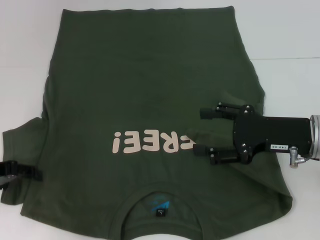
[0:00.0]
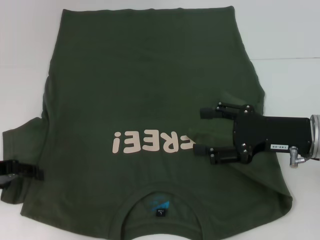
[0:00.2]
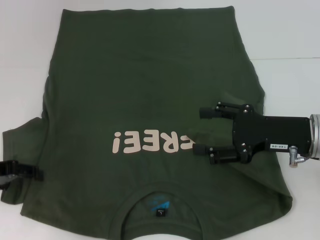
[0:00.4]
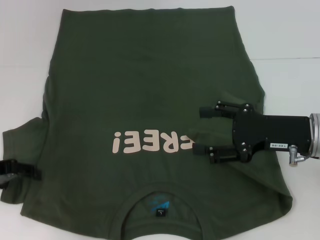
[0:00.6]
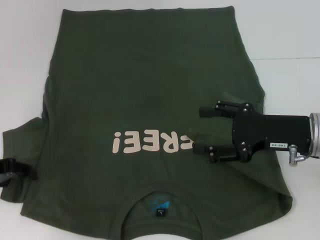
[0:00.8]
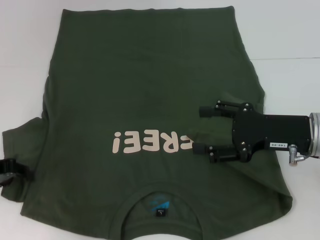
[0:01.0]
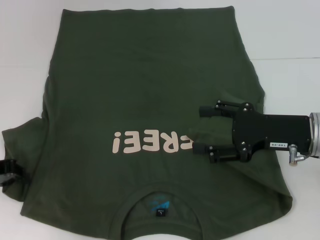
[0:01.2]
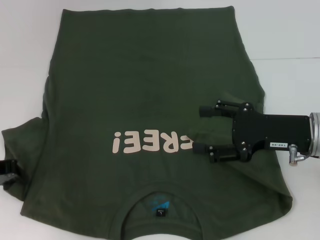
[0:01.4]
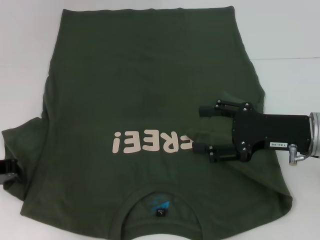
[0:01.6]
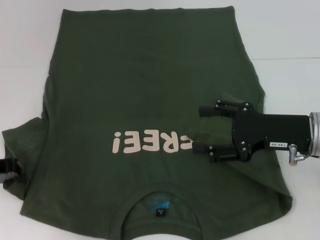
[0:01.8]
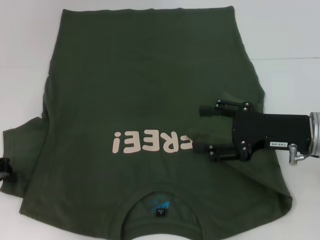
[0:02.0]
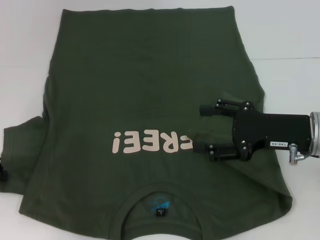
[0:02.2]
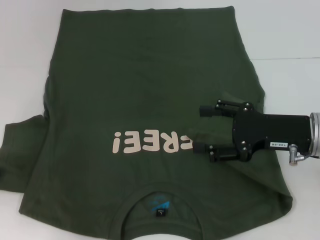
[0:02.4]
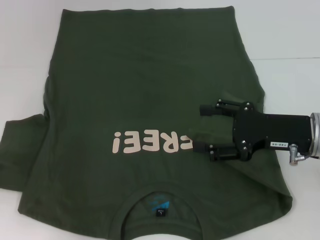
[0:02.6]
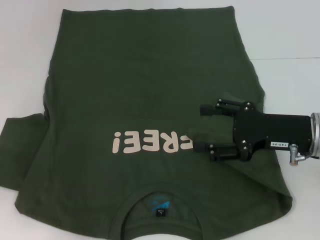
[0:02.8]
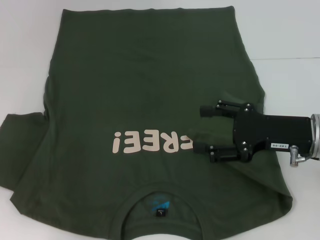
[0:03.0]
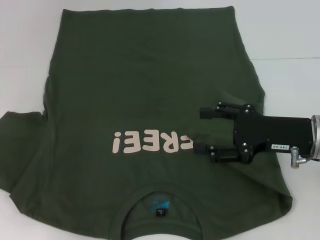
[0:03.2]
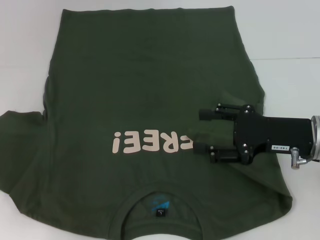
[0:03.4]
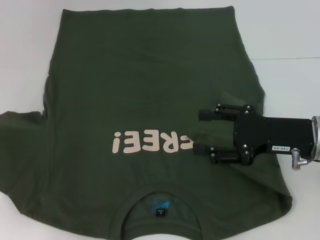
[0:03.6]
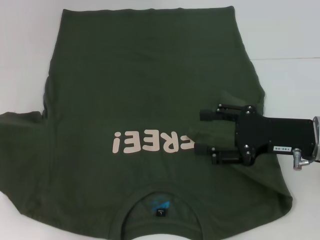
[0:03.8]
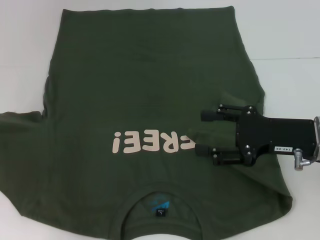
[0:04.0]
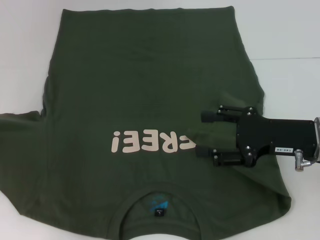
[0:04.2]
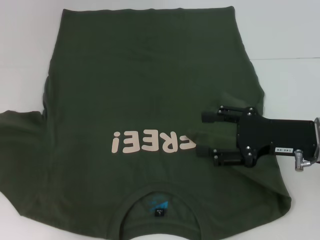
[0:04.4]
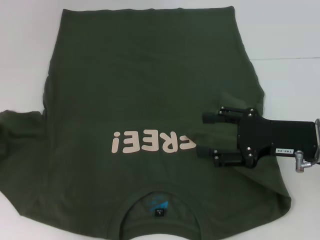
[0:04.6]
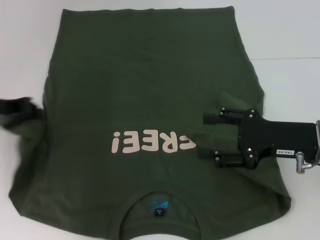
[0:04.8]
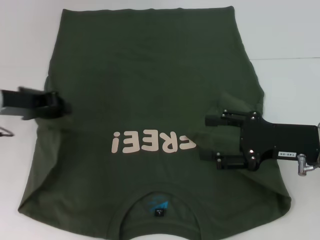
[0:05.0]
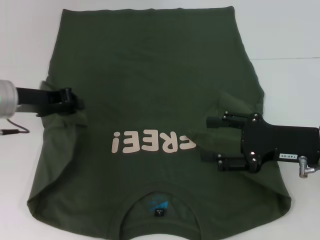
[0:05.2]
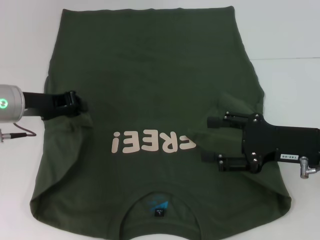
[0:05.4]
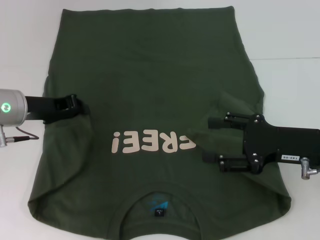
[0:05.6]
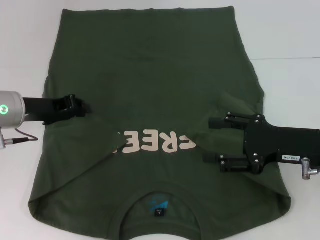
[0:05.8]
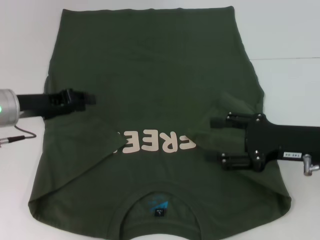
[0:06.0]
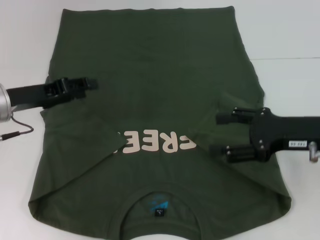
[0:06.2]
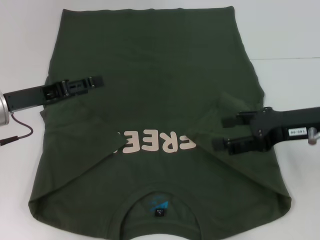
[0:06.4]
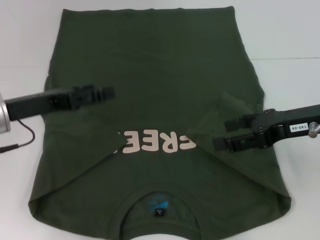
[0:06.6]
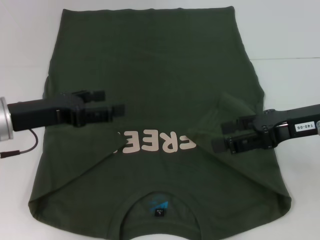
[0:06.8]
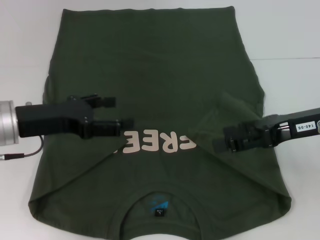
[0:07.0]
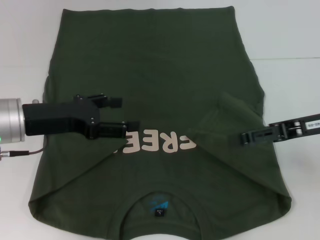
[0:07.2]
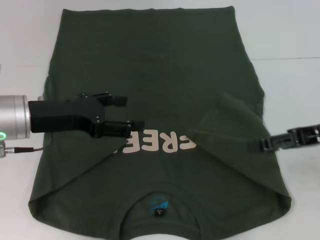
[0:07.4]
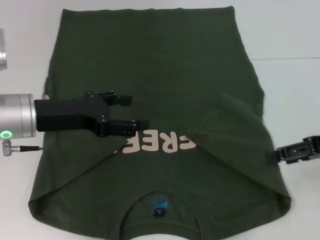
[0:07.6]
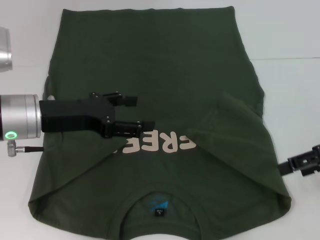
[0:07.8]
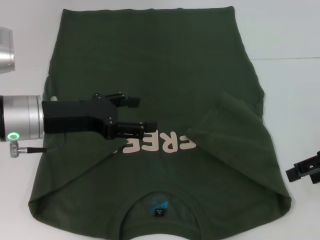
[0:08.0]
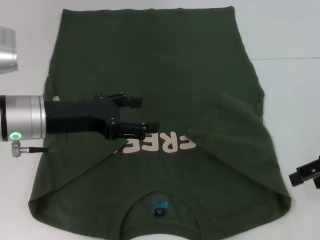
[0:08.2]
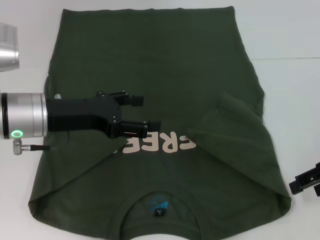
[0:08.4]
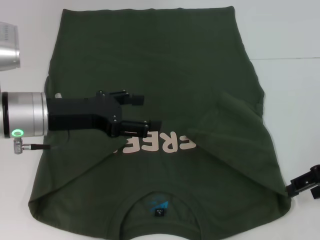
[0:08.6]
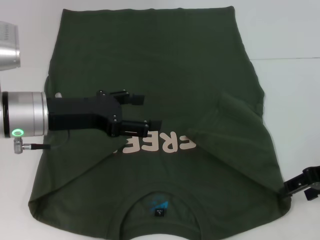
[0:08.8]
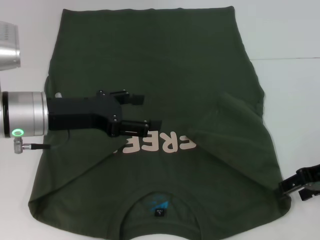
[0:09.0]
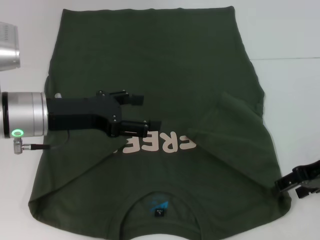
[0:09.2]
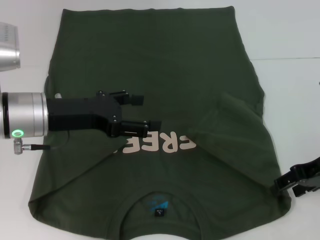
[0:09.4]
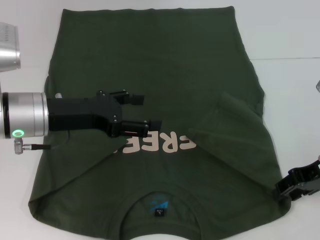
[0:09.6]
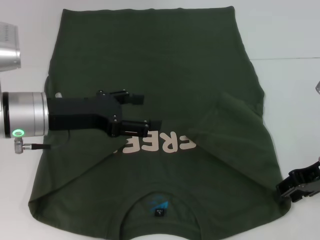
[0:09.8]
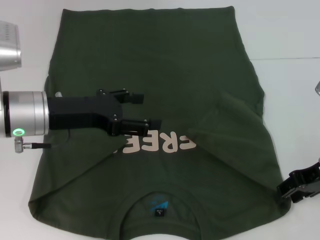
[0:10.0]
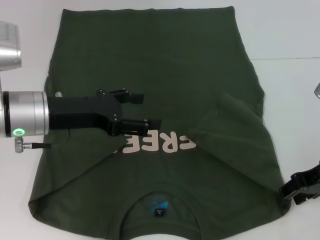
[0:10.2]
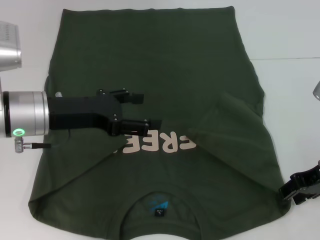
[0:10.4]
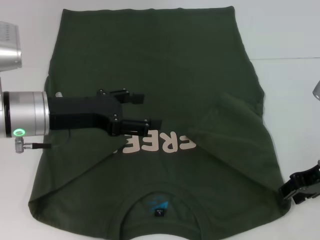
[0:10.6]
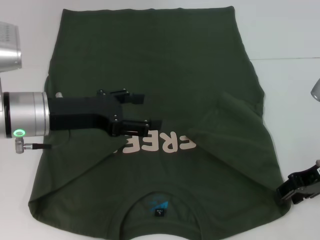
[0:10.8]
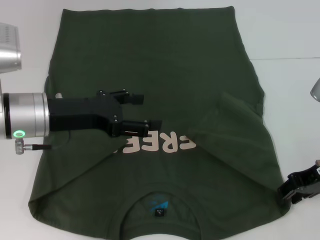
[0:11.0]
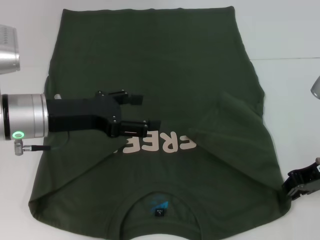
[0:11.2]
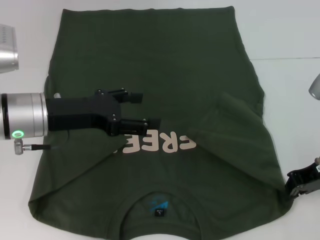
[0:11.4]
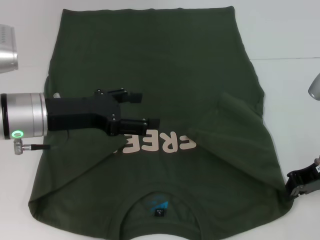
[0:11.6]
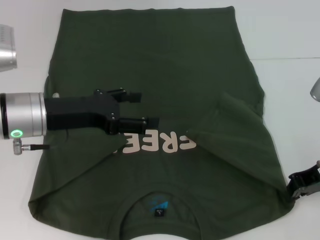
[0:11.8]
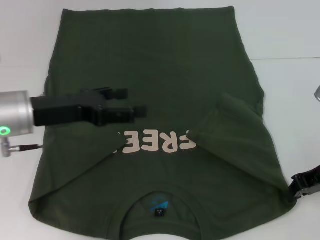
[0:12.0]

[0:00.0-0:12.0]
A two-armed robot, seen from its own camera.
Step, 0:00.0 to 0:06.2: Fold the bottom left sleeve with your left hand.
0:00.0 to 0:01.6: The left gripper closes up.
0:01.6 to 0:03.0: The grippers stay close to where they were, moving slightly.
0:03.0 to 0:04.4: The grippers make only small movements.
0:04.4 to 0:06.0: The left gripper moves to the right, roughly 10 cm.
0:06.0 to 0:07.6: The left gripper moves approximately 5 cm, and opens its fingers. The right gripper shifts some 10 cm upward and to the right.
0:09.0 to 0:10.4: The grippers make only small movements.
0:10.4 to 0:12.0: The right gripper closes.

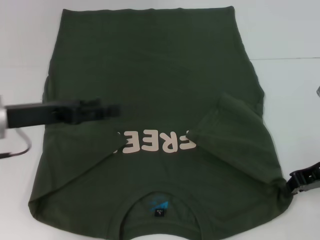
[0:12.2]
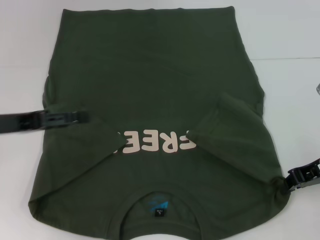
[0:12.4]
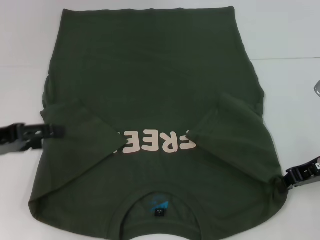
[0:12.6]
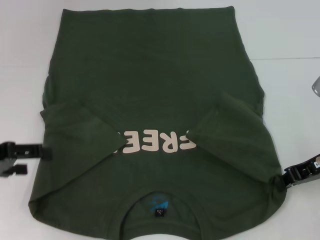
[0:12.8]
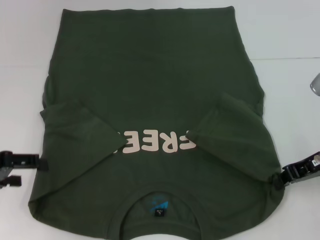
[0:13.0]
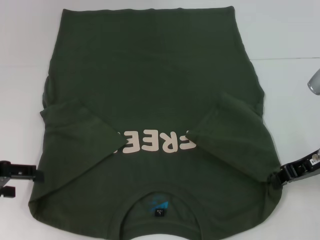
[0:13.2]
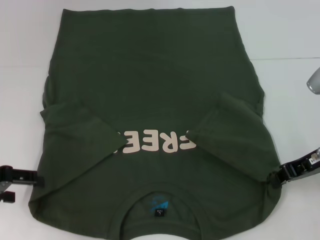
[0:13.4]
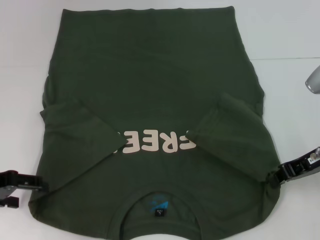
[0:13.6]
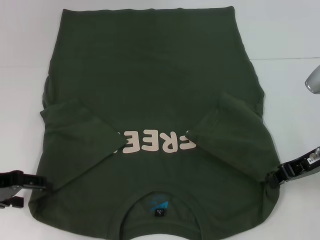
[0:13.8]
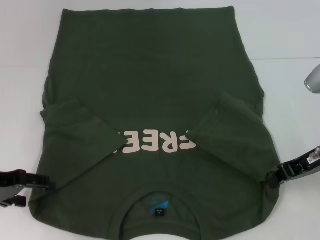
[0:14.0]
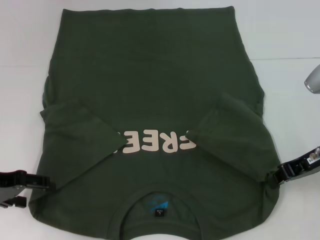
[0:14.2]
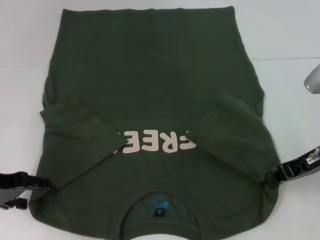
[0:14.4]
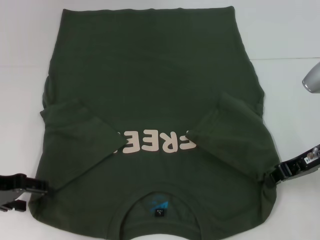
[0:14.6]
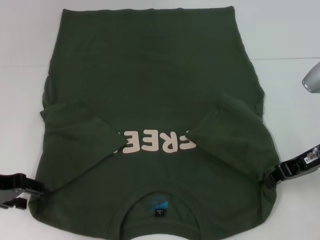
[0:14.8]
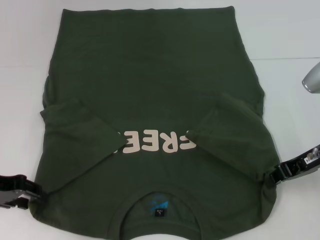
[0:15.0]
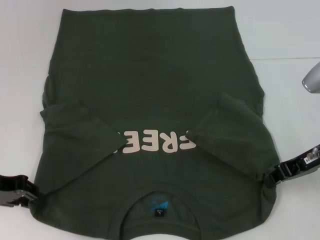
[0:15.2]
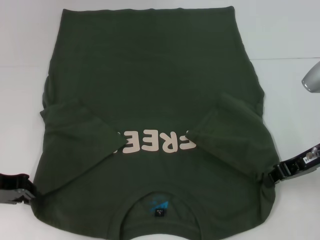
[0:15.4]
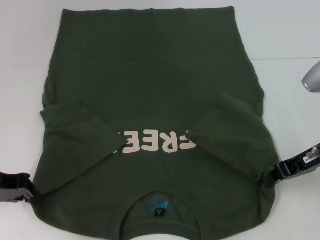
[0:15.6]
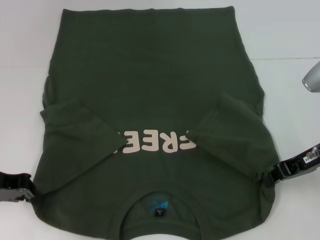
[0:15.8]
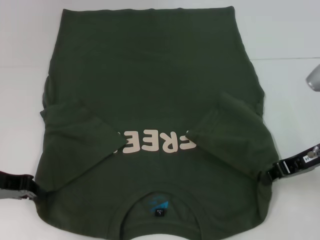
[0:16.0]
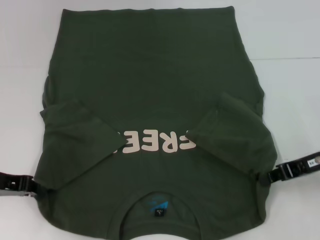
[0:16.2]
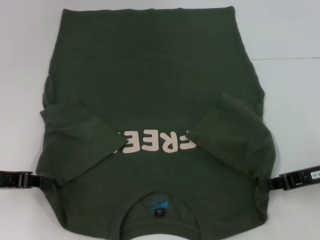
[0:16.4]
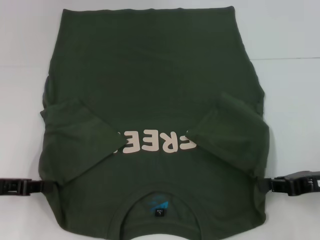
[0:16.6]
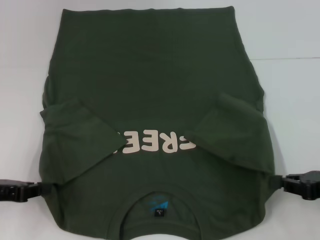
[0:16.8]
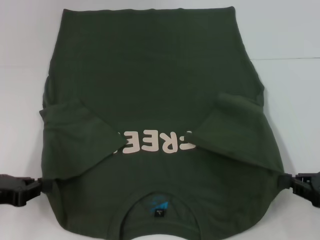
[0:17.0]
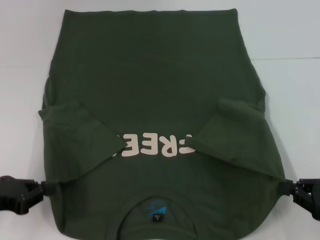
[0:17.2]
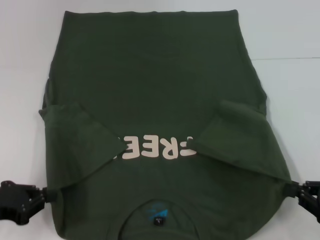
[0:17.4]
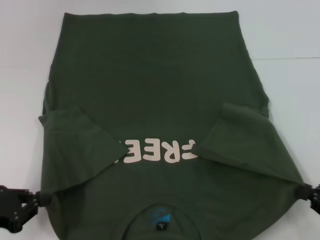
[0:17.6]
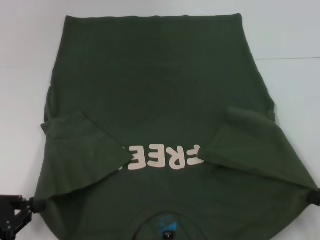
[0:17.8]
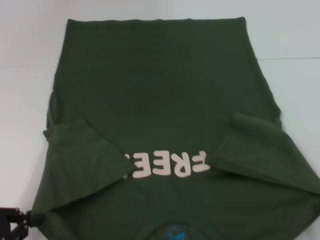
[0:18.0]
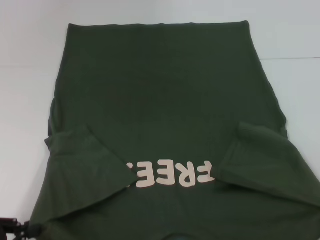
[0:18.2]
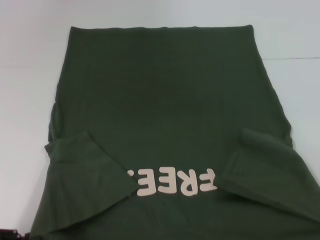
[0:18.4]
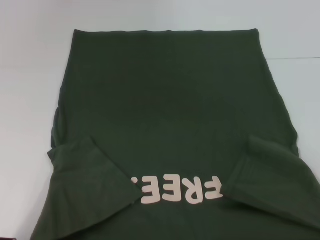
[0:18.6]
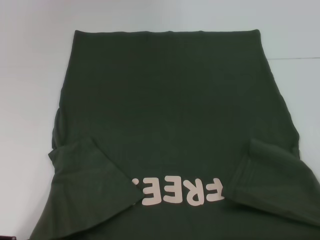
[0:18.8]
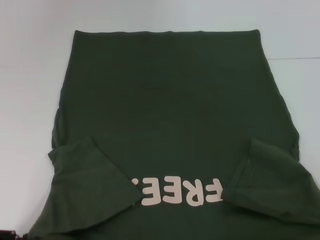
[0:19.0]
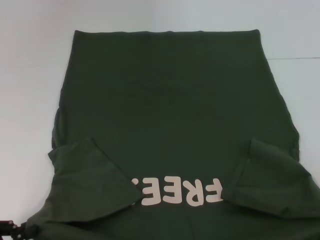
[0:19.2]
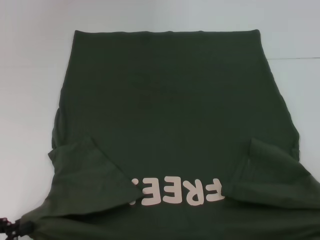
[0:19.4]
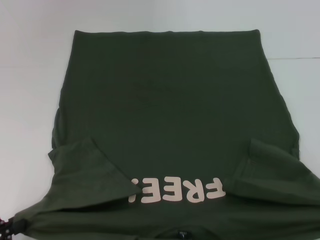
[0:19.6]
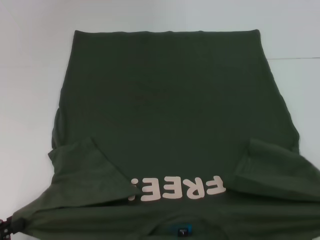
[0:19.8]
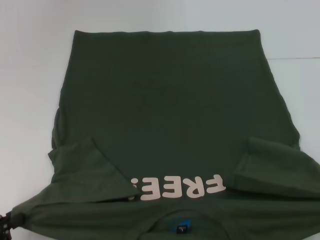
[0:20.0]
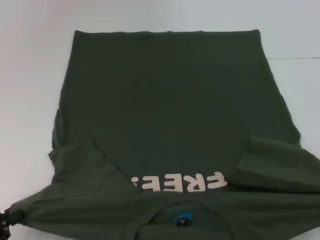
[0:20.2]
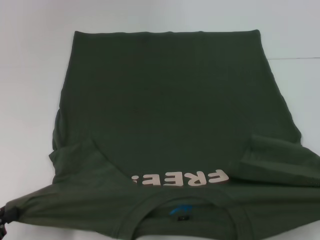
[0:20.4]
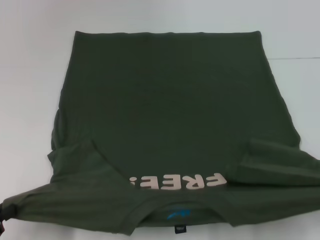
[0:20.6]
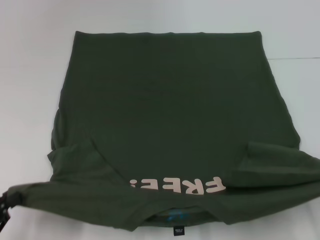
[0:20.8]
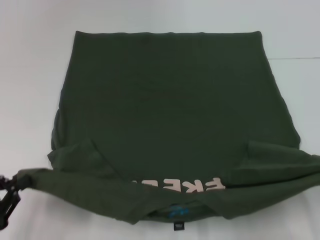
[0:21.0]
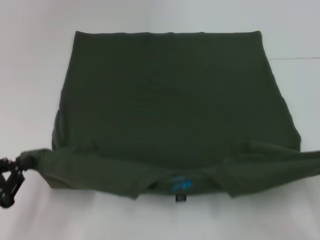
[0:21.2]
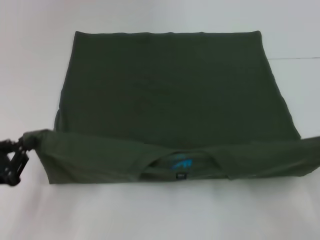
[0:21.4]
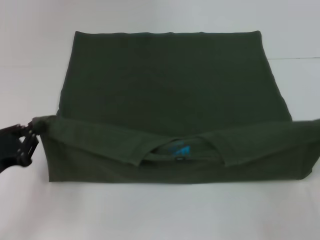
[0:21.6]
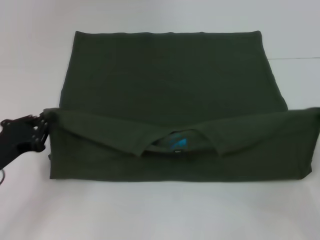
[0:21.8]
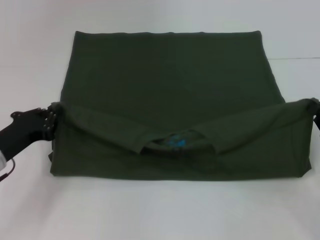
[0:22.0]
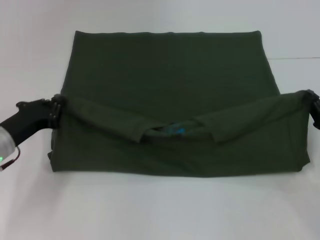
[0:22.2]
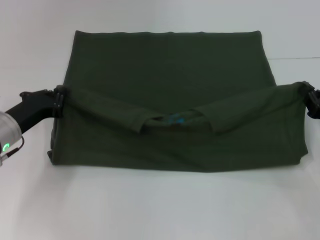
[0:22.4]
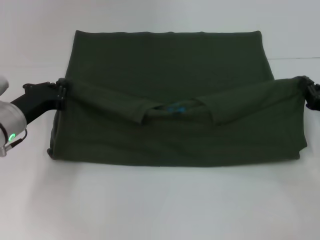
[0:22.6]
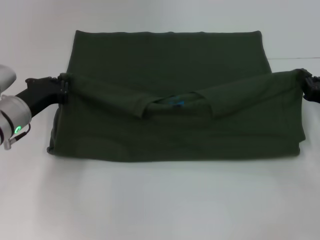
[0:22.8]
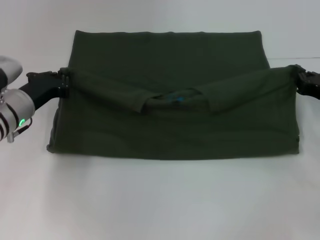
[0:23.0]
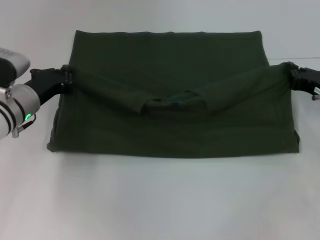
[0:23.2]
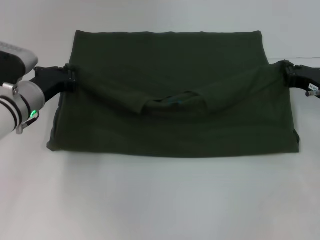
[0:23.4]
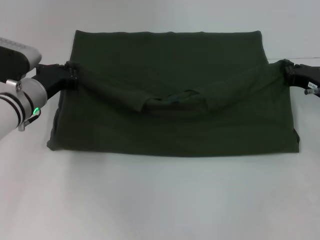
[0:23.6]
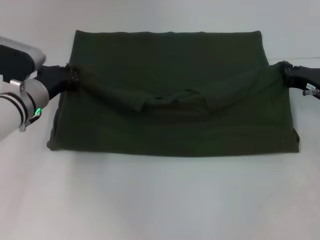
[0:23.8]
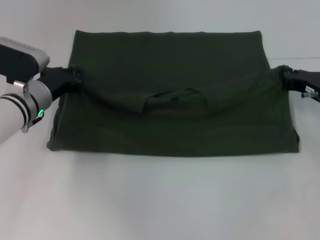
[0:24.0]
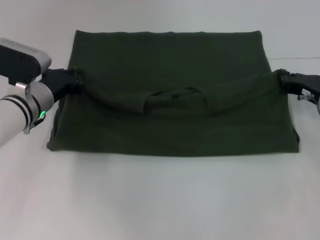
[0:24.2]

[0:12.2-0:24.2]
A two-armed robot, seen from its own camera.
Step, 0:12.2 to 0:15.8: Grab the bottom left corner with your left hand.
0:12.2 to 0:13.8: The left gripper heads to the left, covering about 5 cm.
0:13.8 to 0:15.2: The left gripper closes.
0:15.2 to 0:16.6: The right gripper shifts approximately 5 cm backward. The left gripper closes.
0:16.6 to 0:18.2: The left gripper travels backward by approximately 10 cm. The right gripper shifts roughly 15 cm backward.
0:18.2 to 0:19.8: The grippers make only small movements.
0:19.8 to 0:21.2: The grippers both shift forward by about 5 cm.
0:21.2 to 0:22.6: The left gripper shifts about 20 cm forward and to the right; the right gripper moves forward, approximately 20 cm.
0:22.6 to 0:24.2: The left gripper shifts by roughly 5 cm. The right gripper shifts about 5 cm forward.
